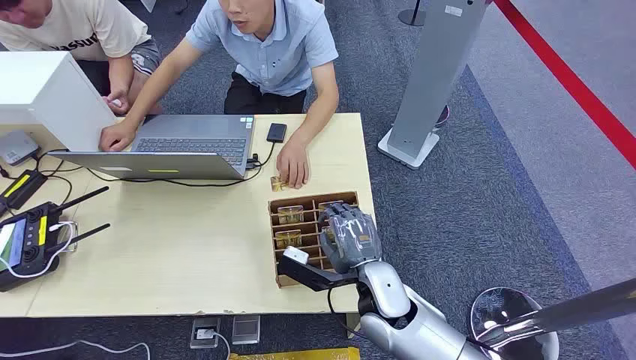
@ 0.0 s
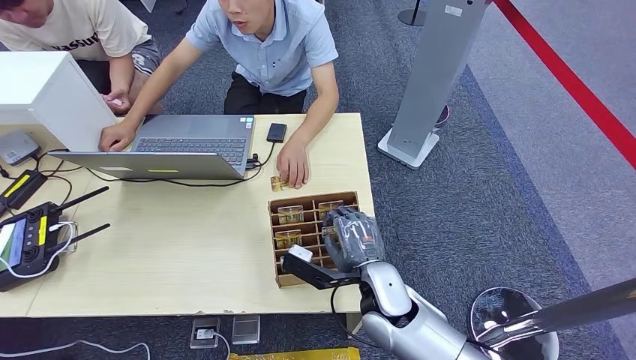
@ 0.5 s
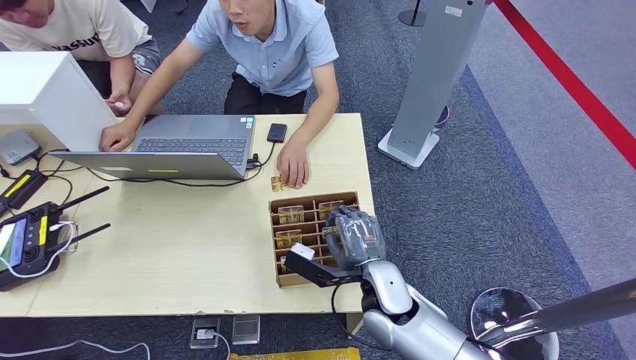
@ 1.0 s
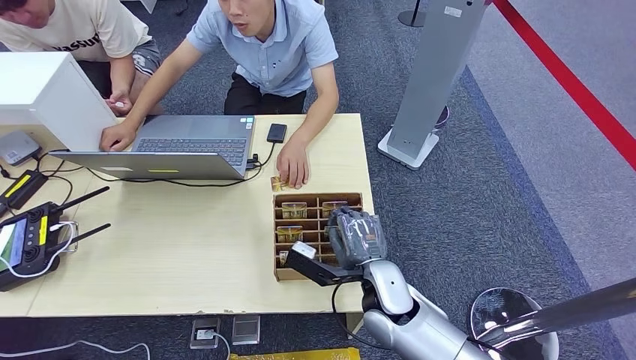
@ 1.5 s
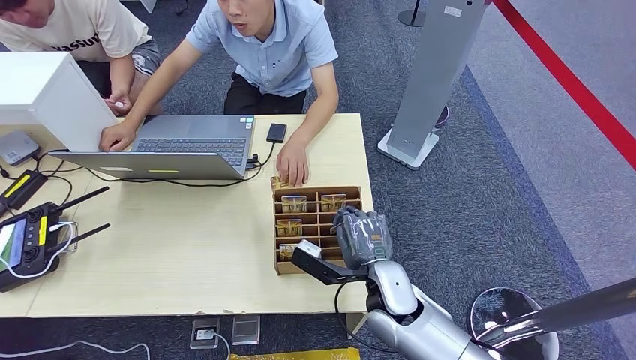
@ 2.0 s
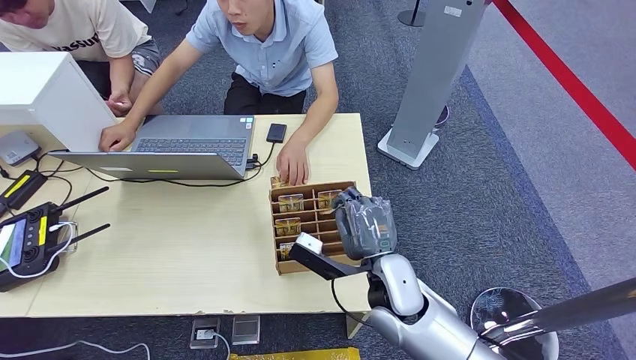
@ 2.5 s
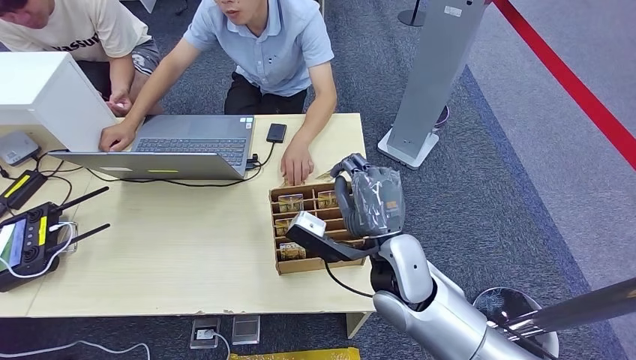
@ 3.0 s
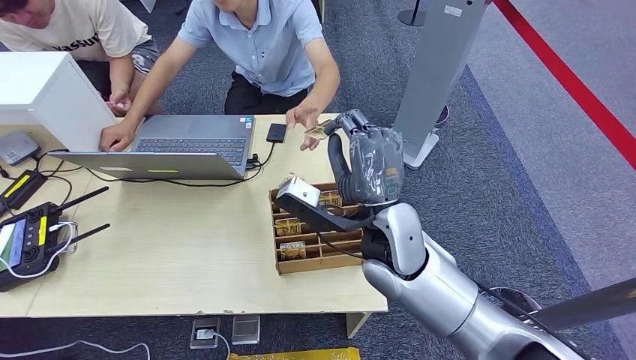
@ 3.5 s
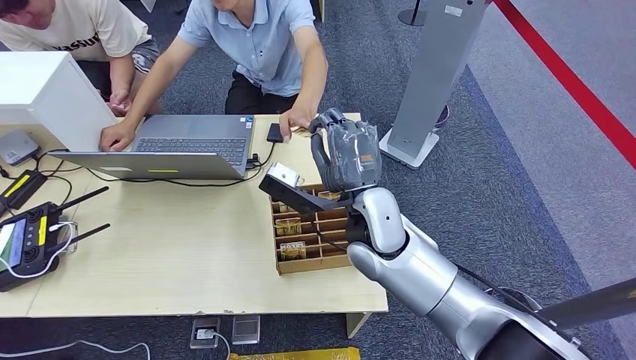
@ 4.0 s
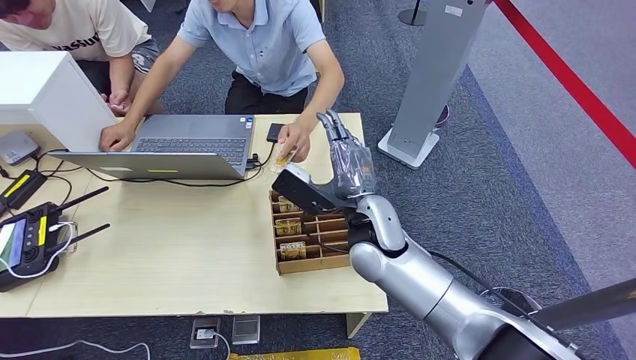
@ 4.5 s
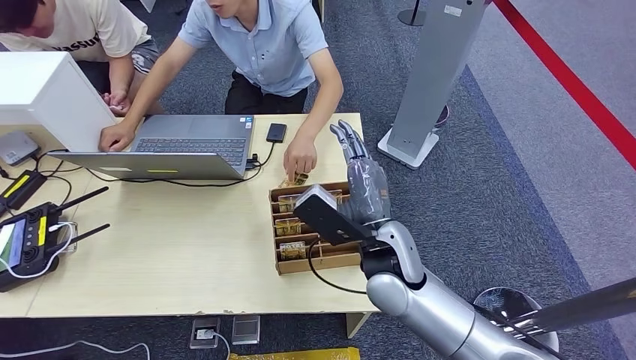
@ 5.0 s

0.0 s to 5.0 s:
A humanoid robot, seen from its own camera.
Step, 0.0 to 2.5 s: Pick up the room card from the card holder.
Step, 3.5 to 5.0 s: Hand the room card to the target.
2.5 to 5.0 s: The right hand moves upward, roughly 5 cm.
